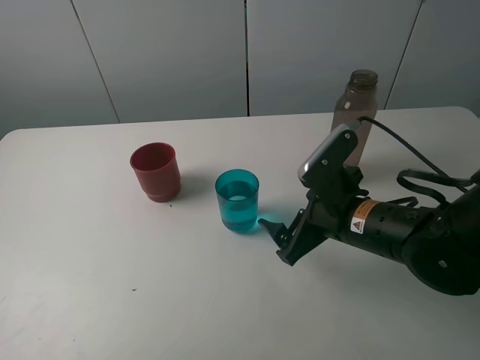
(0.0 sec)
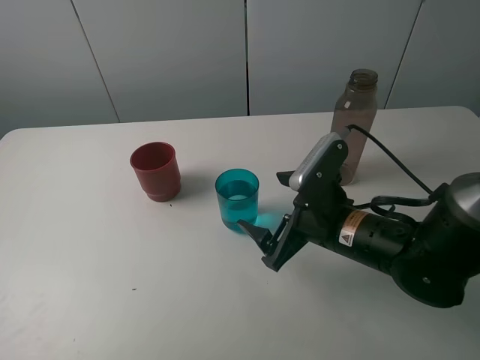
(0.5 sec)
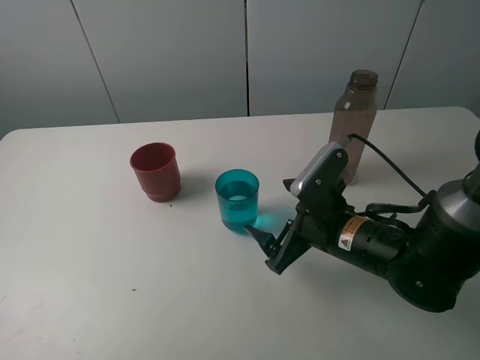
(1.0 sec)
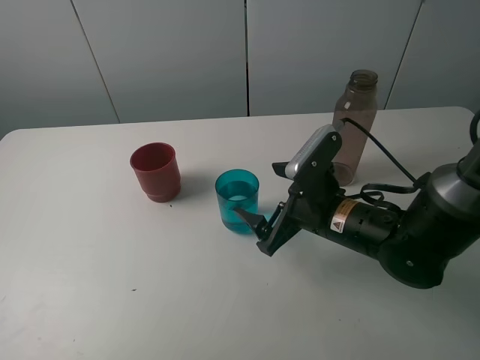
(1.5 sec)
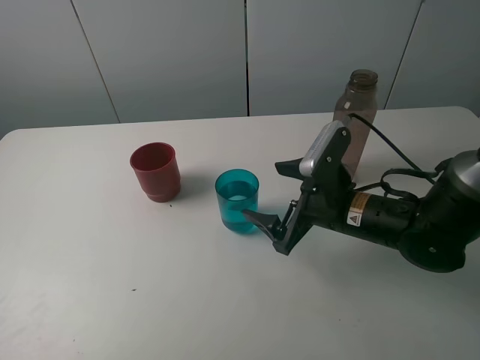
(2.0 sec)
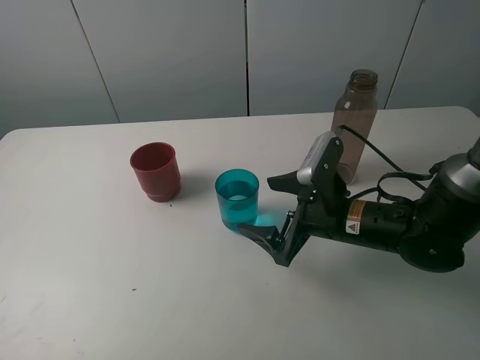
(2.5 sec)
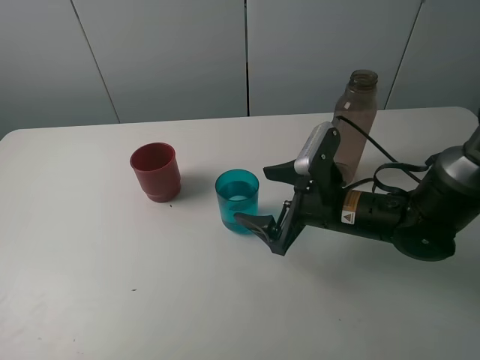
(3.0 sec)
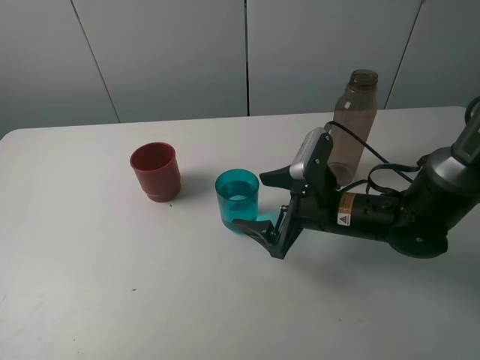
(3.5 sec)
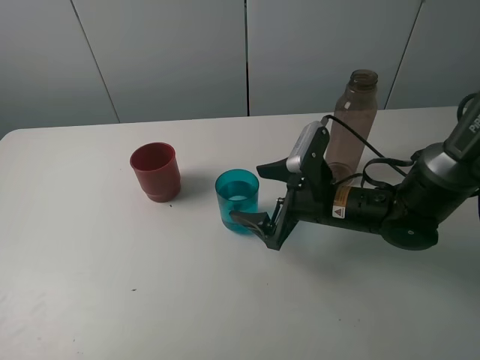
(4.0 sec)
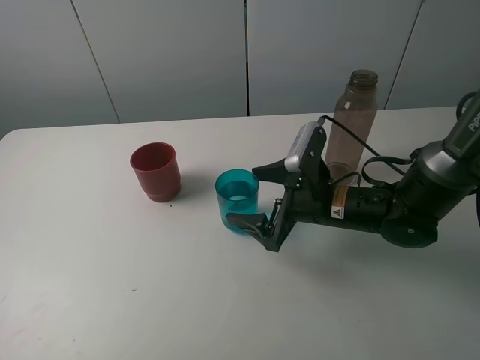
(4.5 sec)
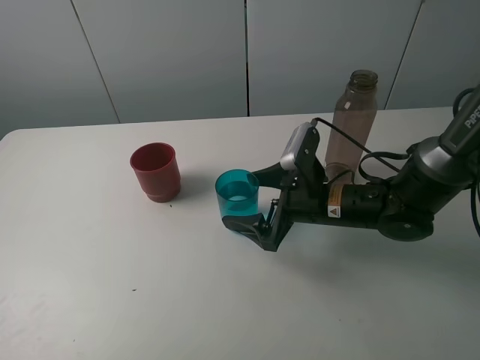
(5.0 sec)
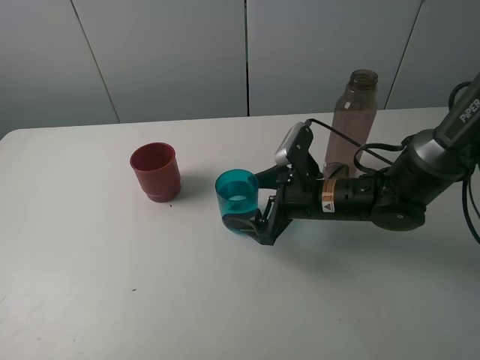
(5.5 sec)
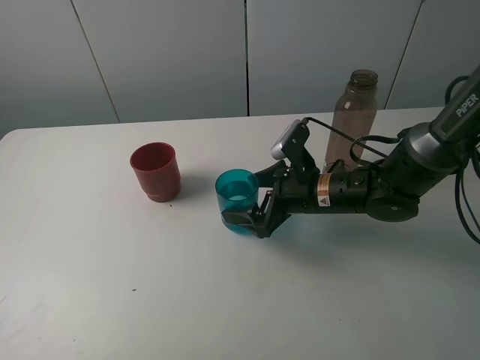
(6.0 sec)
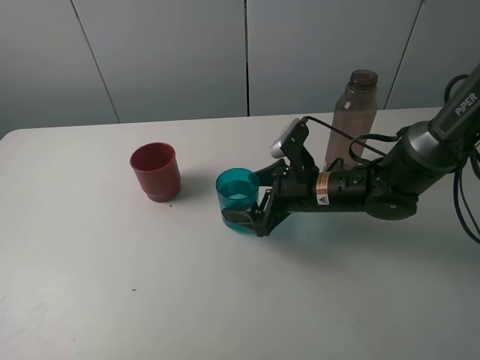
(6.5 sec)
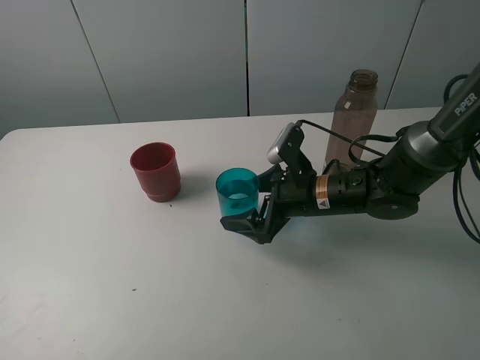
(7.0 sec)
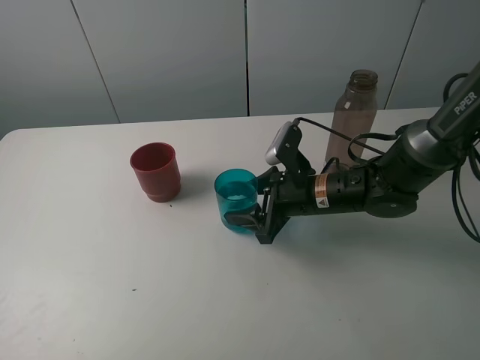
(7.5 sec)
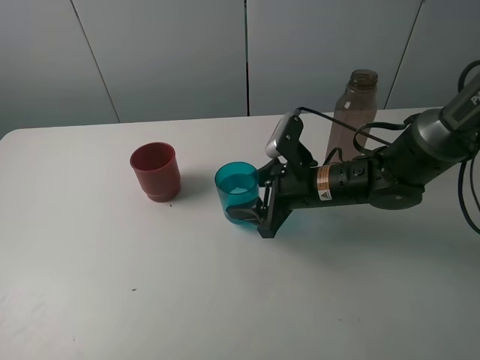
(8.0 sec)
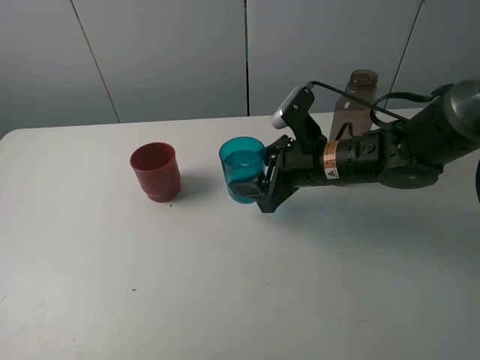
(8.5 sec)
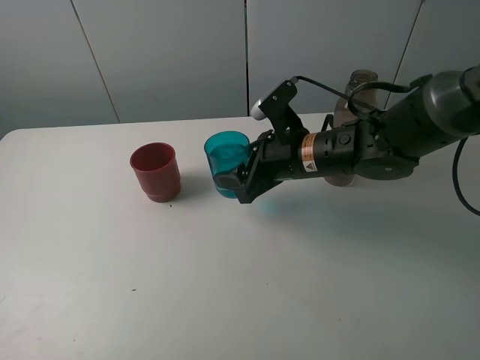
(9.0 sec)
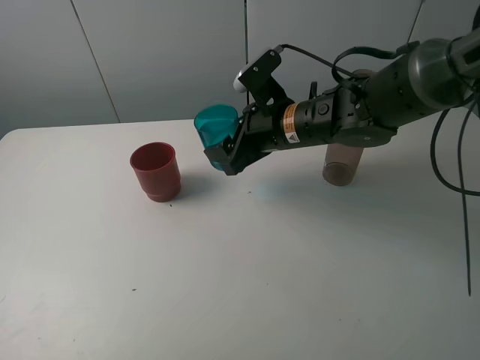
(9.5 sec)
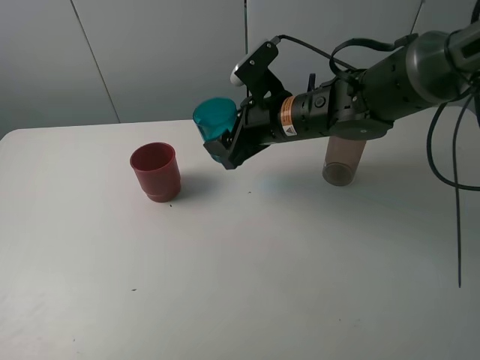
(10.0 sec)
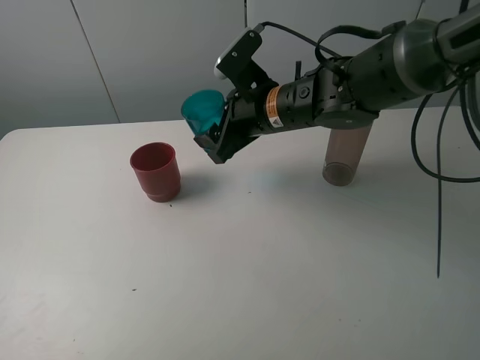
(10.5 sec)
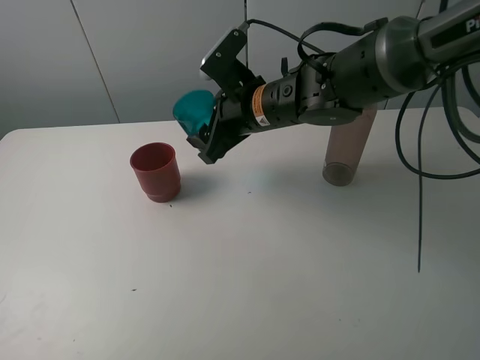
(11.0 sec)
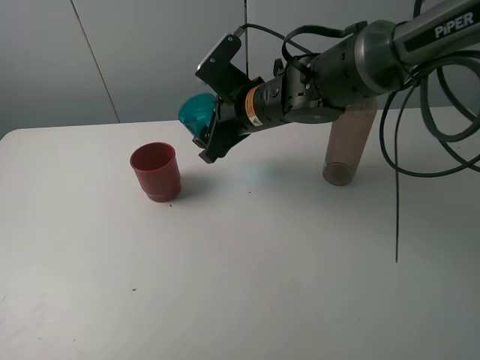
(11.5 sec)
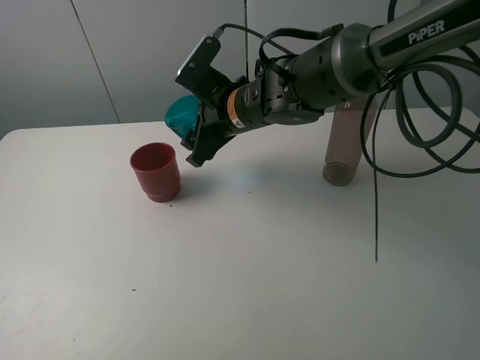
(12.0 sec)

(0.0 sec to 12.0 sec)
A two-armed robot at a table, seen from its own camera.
Task of the whole recording: pick up the bottle and pour water into the cup, then pick up the cup containing water and pour it into another cup.
Step, 0.0 sec - 7.5 sec: Grasp the blue cup with the right gripper.
0.0 sec - 2.0 sec: The grippers move only a little.
2.0 sec - 6.0 sec: The grippers stay close to where they were, moving slightly.
6.0 sec - 8.0 sec: The right gripper closes.
8.0 sec - 10.0 sec: The right gripper moves upward, about 10 cm.
10.0 sec - 12.0 sec: The right gripper shifts some 5 cm to the left.

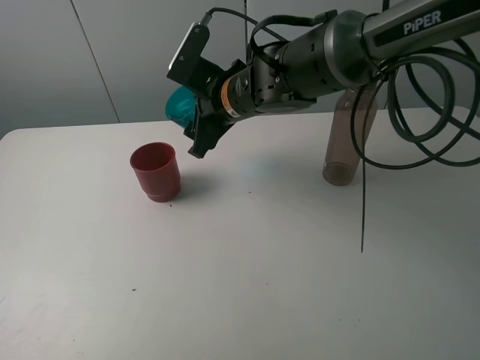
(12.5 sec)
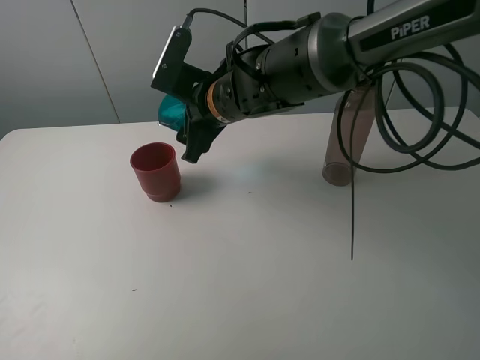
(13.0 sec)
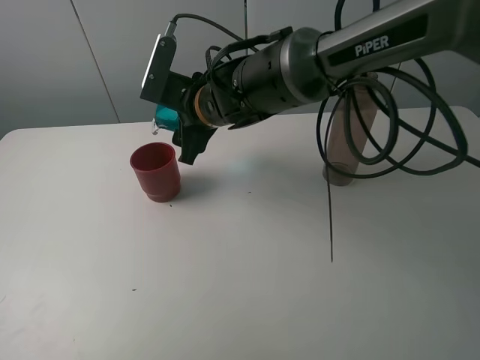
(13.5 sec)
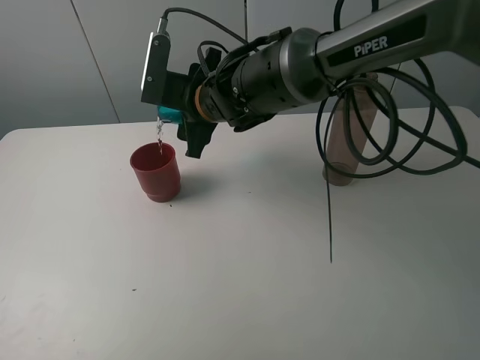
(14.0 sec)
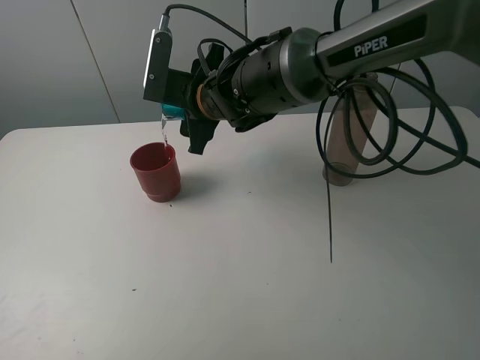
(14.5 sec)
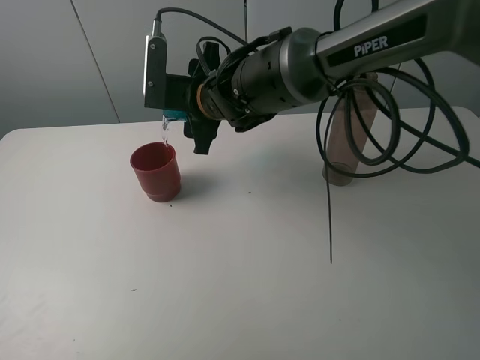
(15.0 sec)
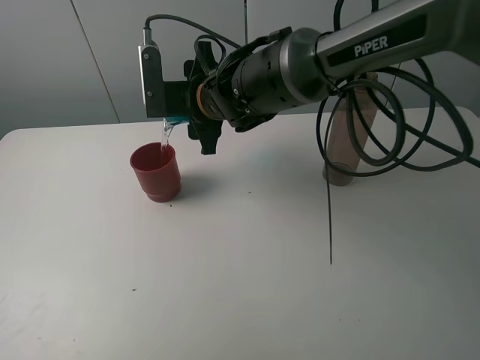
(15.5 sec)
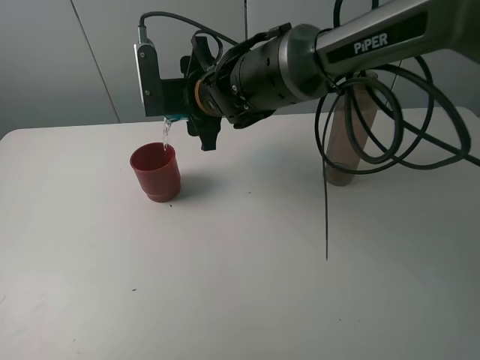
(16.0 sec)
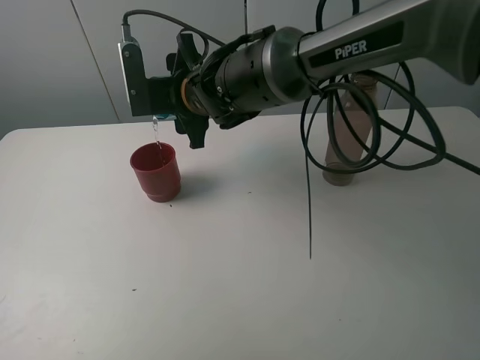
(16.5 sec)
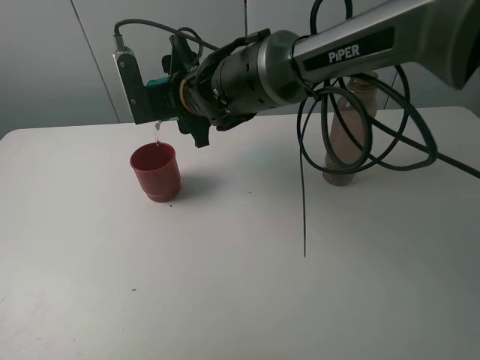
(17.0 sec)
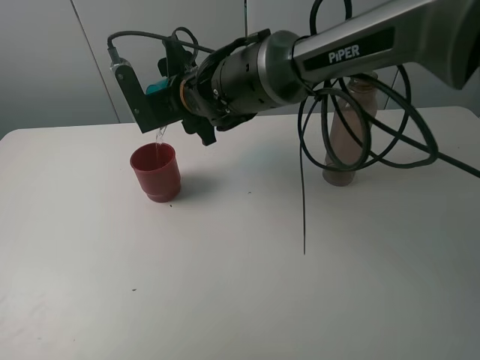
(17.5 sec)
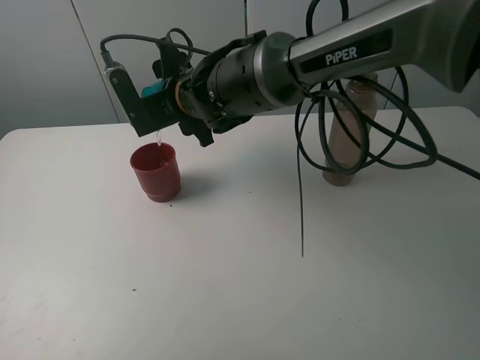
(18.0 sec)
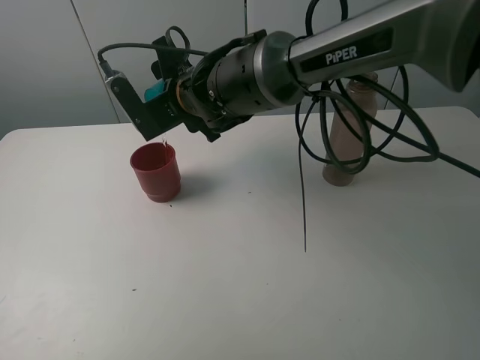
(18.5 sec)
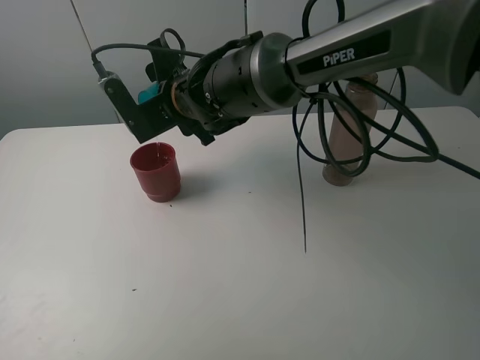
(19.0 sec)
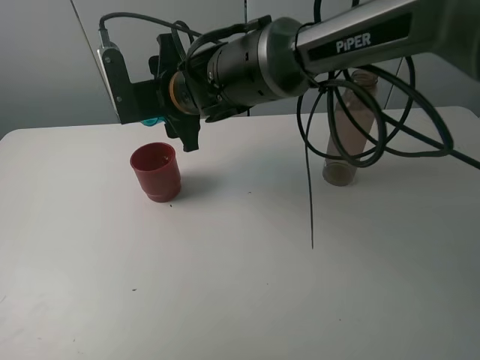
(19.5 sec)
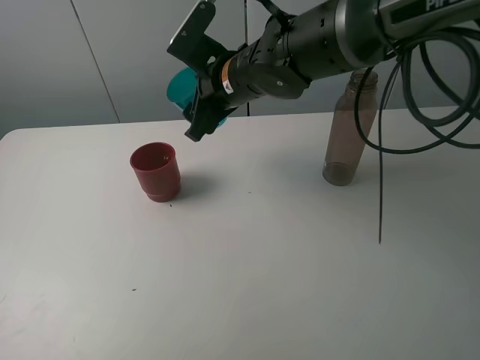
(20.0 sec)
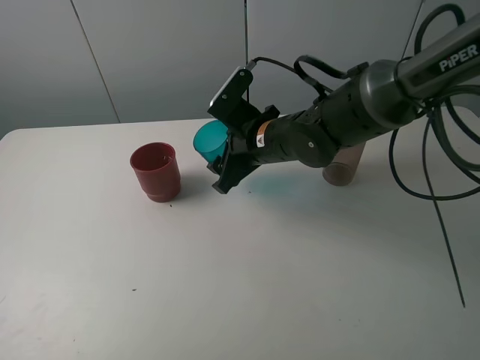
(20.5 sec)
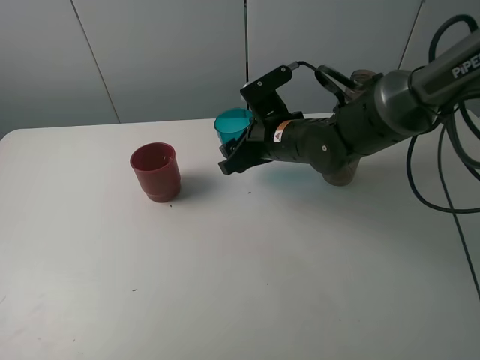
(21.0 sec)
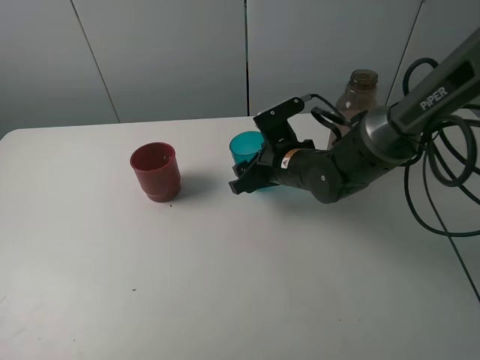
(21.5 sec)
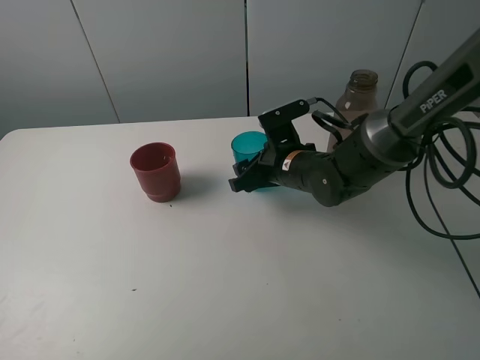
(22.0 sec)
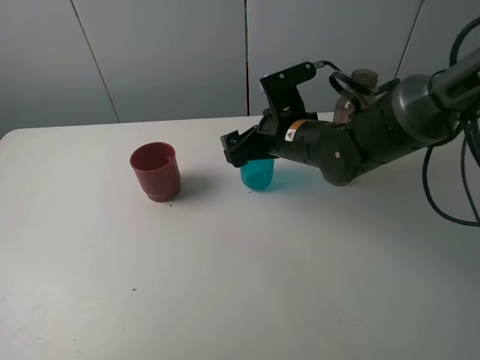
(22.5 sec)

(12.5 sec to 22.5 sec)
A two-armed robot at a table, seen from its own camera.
Task of the whole recording: pick up the bottle and pour water into the cup, then pick up the cup containing water and pour it into another cup.
Step, 12.5 sec - 19.0 sec: Pour water from blue cup to red cup with the right gripper.
Step, 19.5 sec - 22.0 sec: Place the blue cup with the right gripper.
14.5 sec - 16.5 sec: There are only small adjustments of the grippers.
18.5 sec - 20.5 sec: The right gripper goes some 10 cm to the right and downward.
20.5 sec - 22.5 sec: The right gripper opens up.

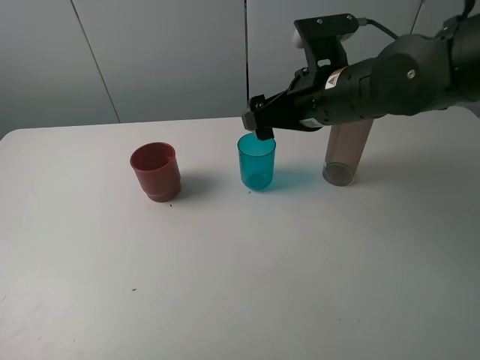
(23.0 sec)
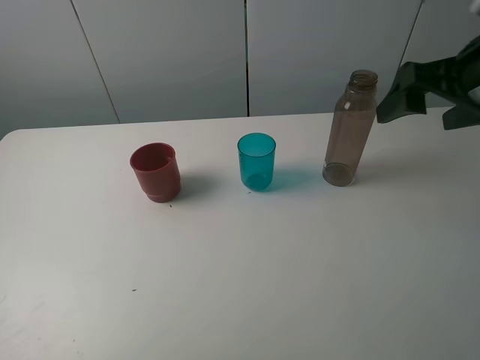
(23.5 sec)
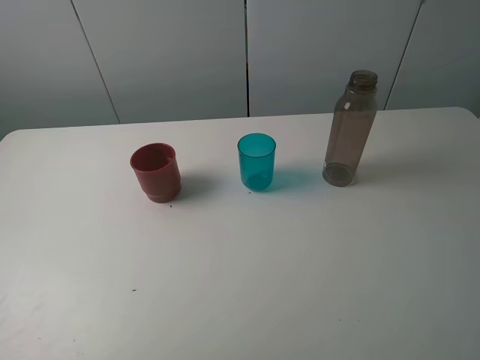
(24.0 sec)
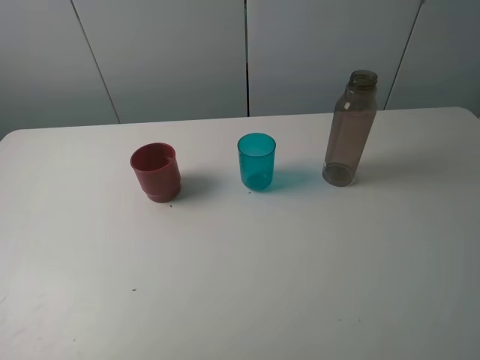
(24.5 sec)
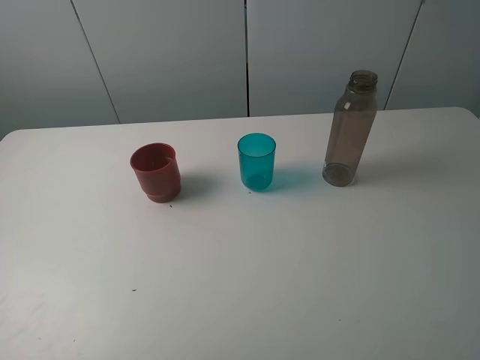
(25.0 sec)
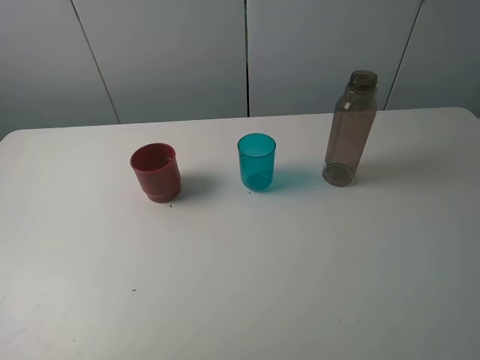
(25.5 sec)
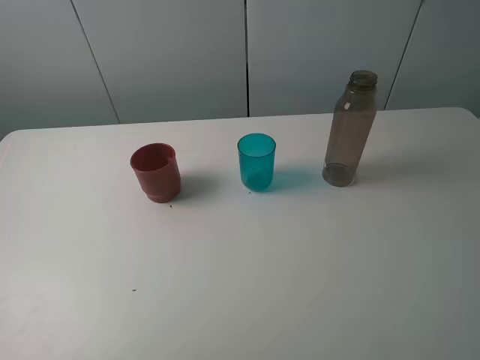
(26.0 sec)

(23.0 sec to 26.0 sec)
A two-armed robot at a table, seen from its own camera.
Task of the whole recording: pick up the bottle and pour water into the cup, then pick up the cup containing water and pour it into another cup.
23.0 sec - 24.5 sec: The right gripper shifts roughly 35 cm backward and to the right.
